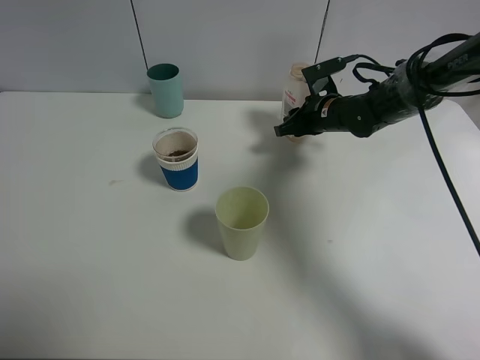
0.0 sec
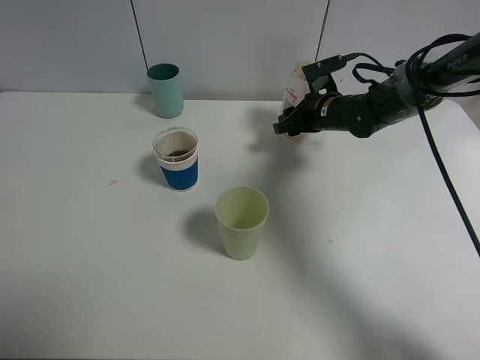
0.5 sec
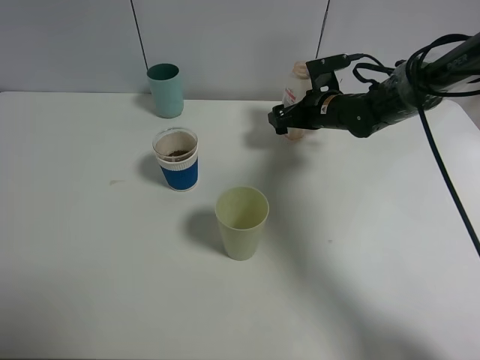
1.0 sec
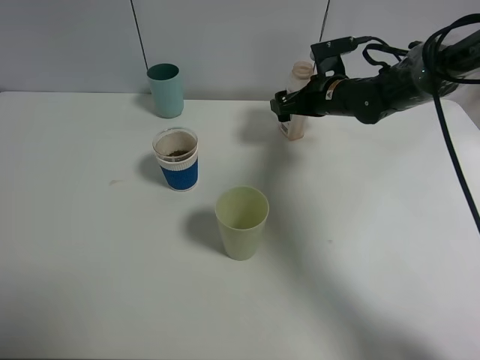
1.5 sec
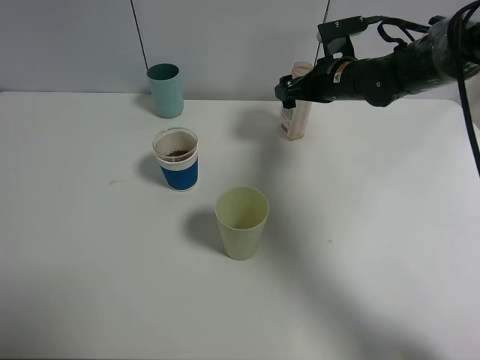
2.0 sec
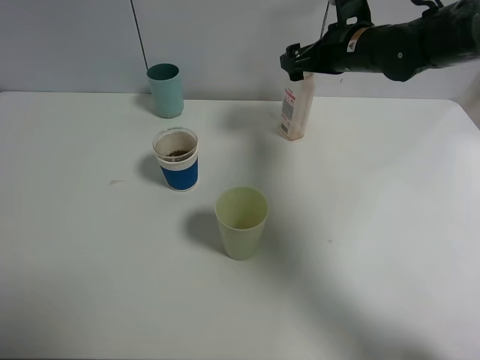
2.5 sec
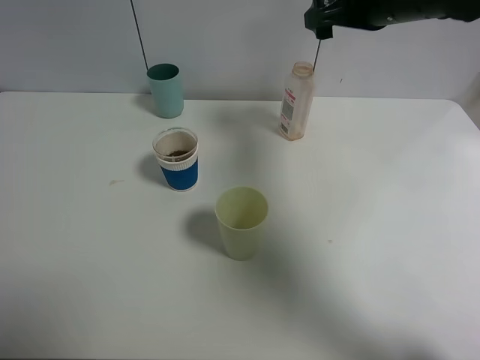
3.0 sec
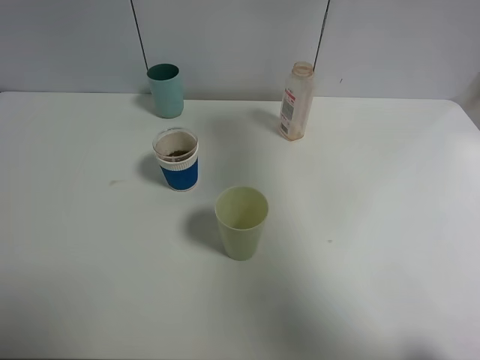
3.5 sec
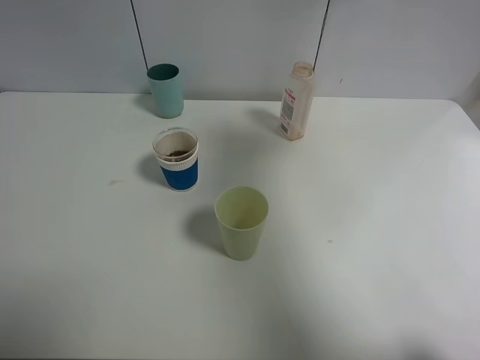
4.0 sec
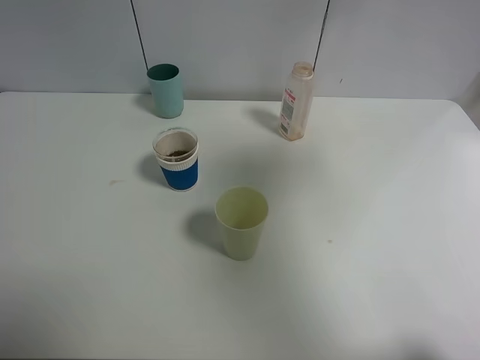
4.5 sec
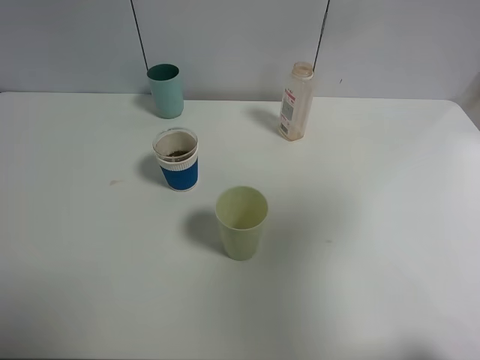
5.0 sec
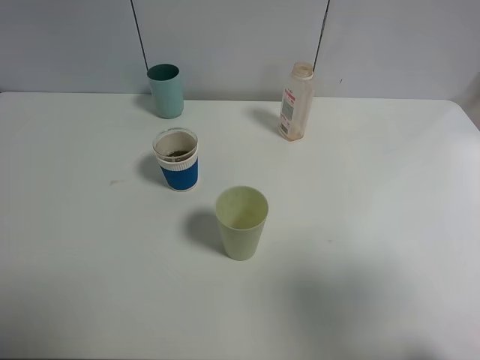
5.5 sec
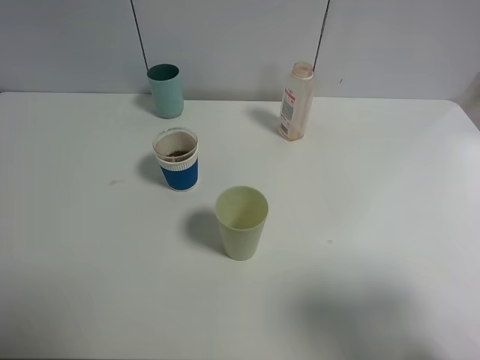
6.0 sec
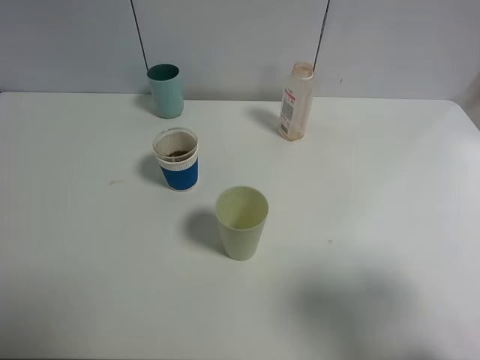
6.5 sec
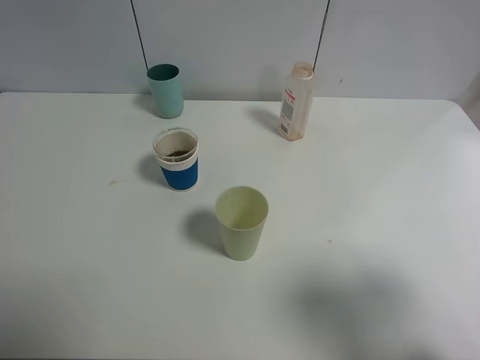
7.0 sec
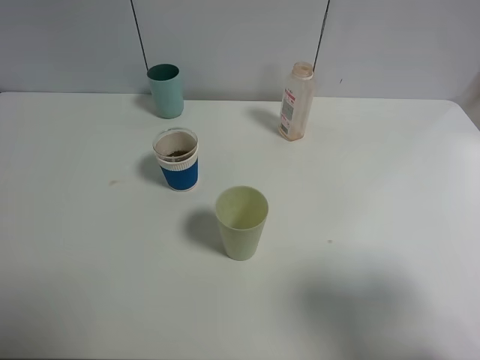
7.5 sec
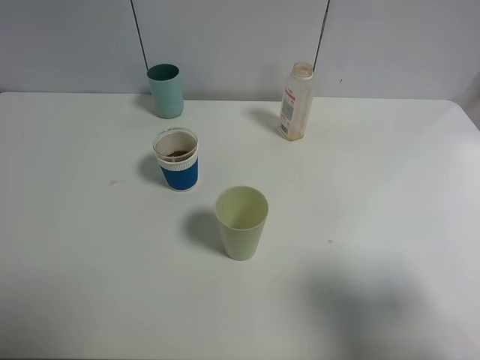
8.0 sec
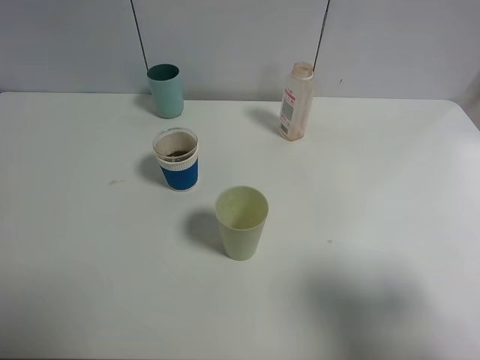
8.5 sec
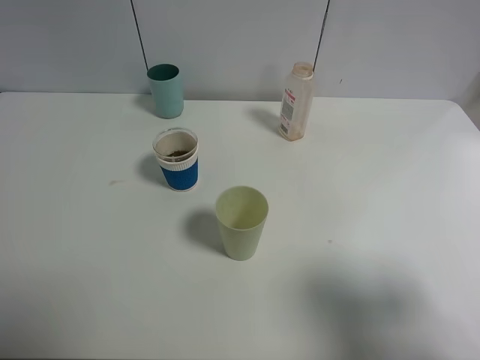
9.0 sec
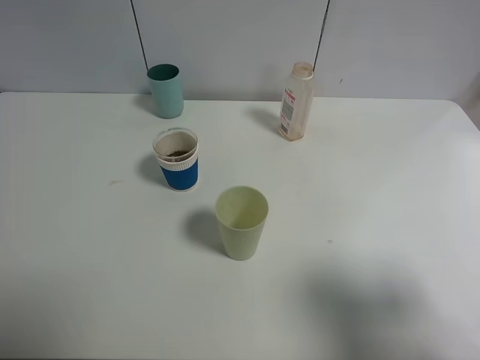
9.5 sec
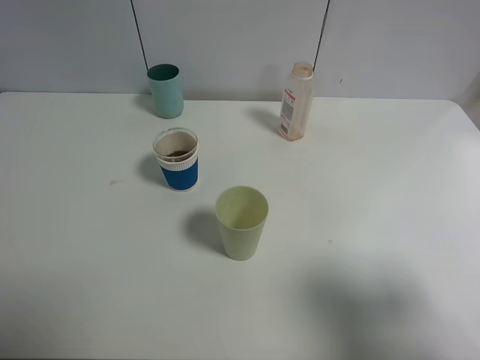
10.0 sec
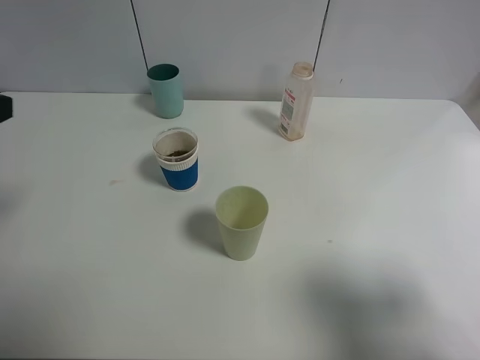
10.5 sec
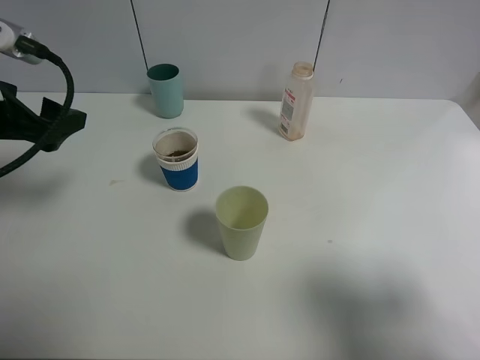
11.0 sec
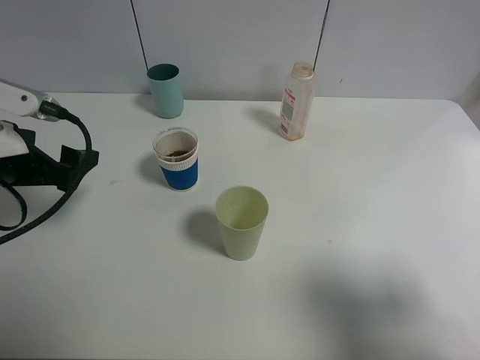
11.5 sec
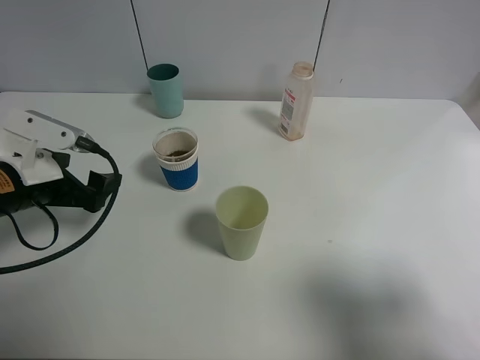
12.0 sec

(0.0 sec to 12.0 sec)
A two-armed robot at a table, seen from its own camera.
Task of the whole recording: use a clamp to hold the bottle of the drink, pour the beverage into a random cup, then clamp the cup containing the drink and pour the drink into another random cup.
0.0 sec - 2.0 sec: The right gripper goes some 5 cm upward, and opens its fingers.
2.0 sec - 4.0 sec: The right gripper moves upward and backward, approximately 30 cm.
4.0 sec - 6.0 sec: The right gripper shifts approximately 30 cm backward and downward.
10.0 sec - 12.0 sec: The left gripper travels forward and downward by about 25 cm.

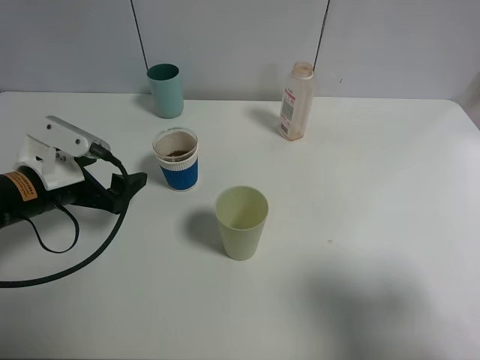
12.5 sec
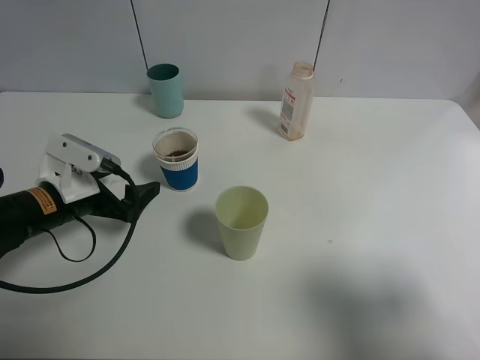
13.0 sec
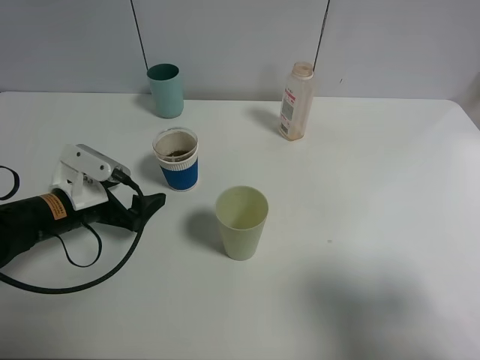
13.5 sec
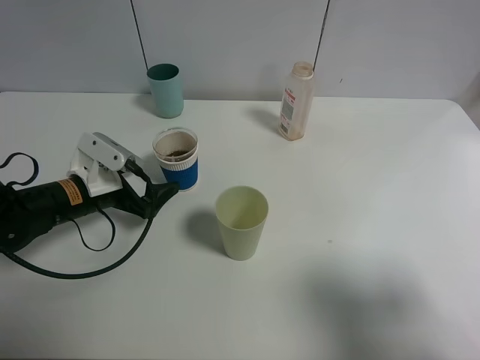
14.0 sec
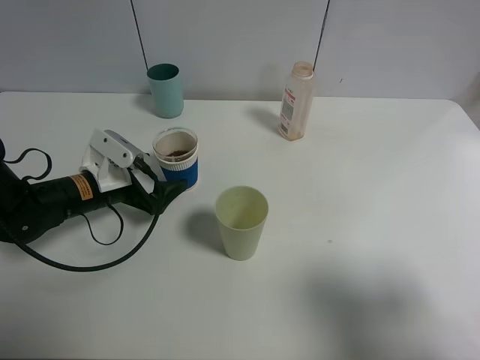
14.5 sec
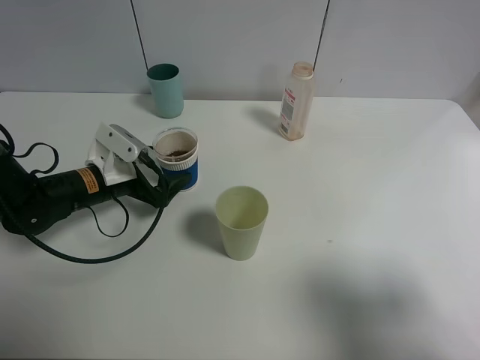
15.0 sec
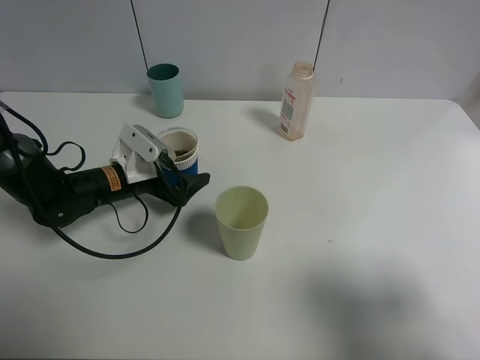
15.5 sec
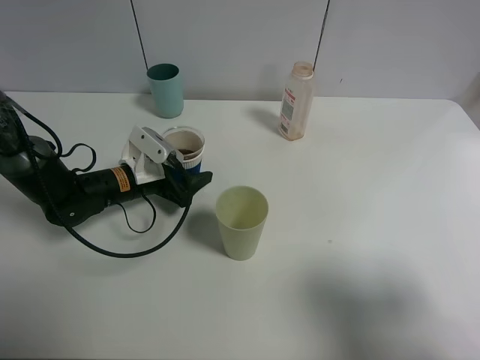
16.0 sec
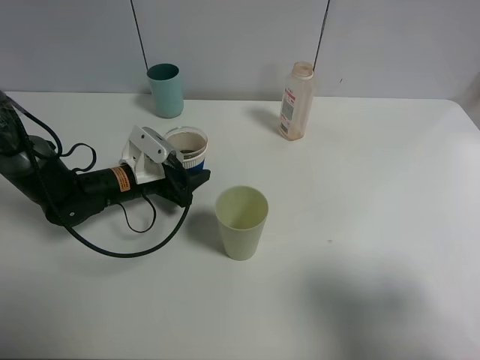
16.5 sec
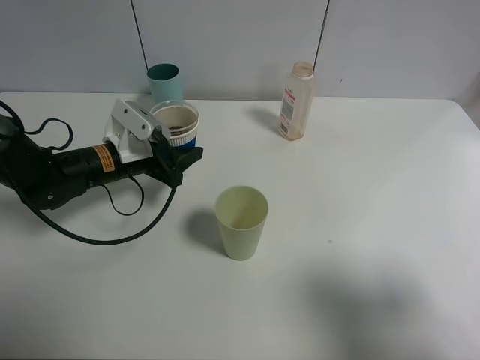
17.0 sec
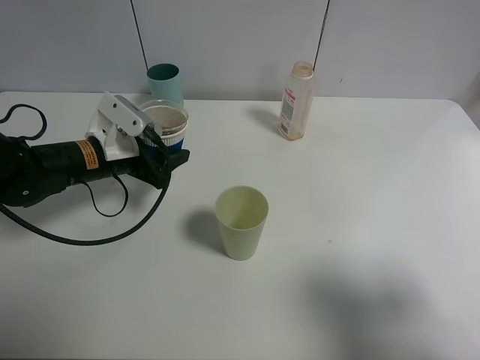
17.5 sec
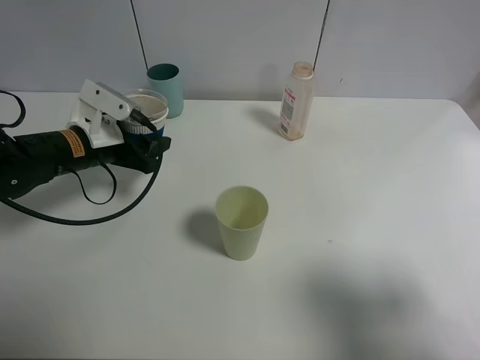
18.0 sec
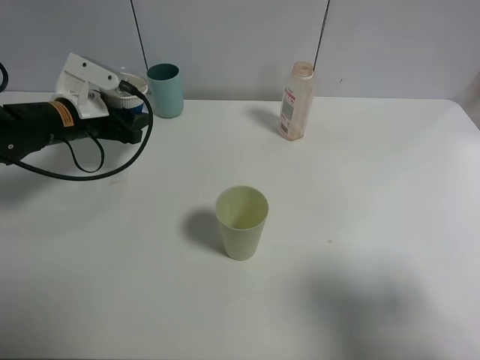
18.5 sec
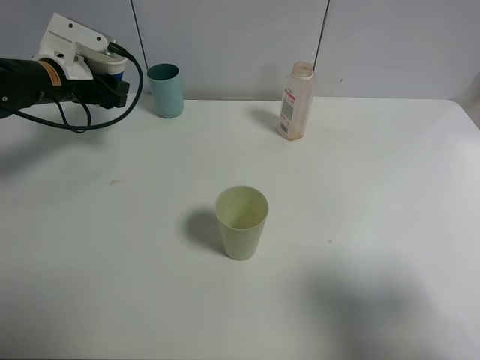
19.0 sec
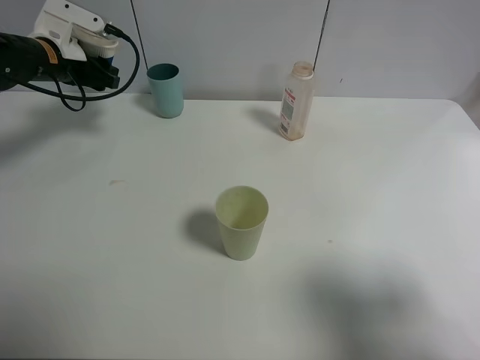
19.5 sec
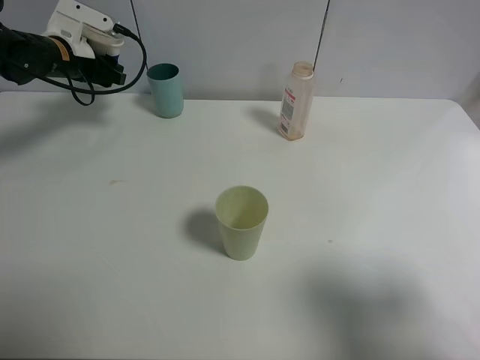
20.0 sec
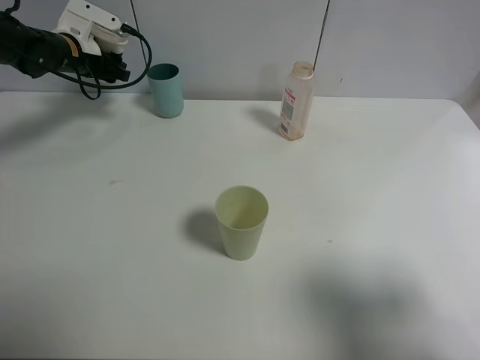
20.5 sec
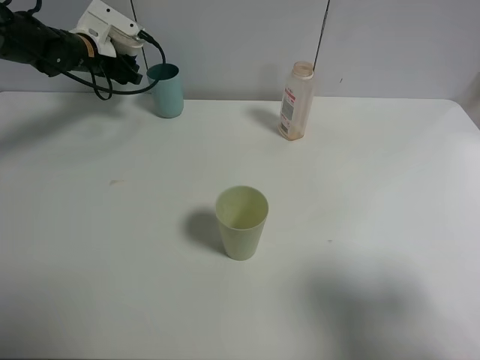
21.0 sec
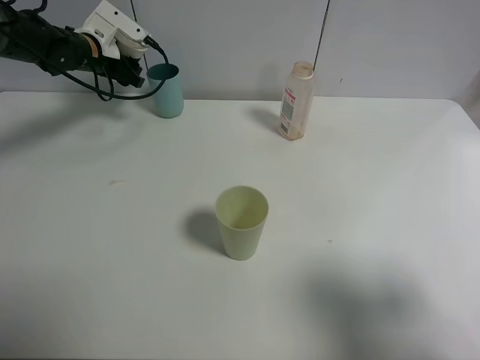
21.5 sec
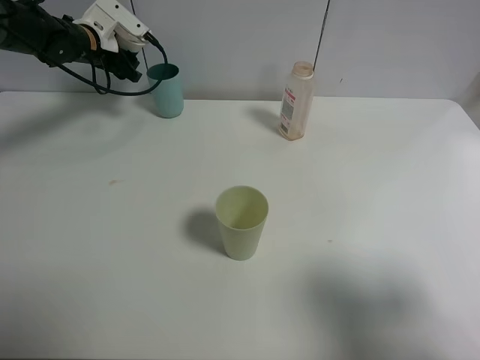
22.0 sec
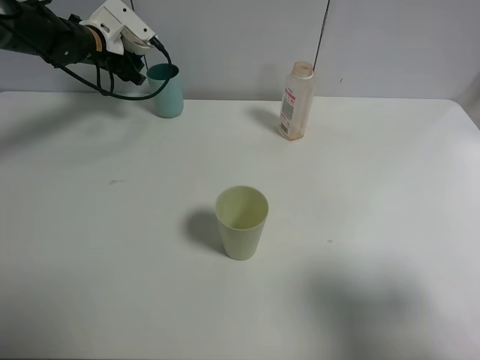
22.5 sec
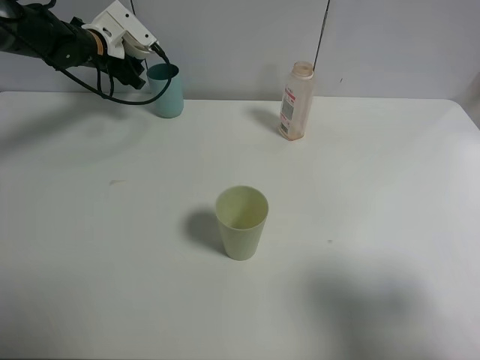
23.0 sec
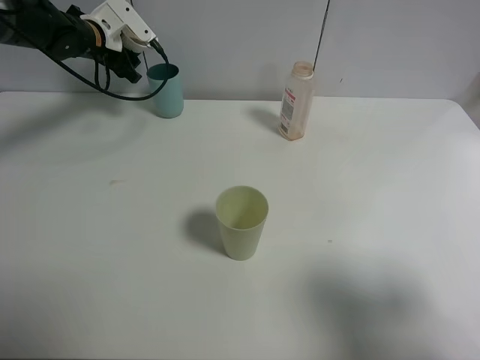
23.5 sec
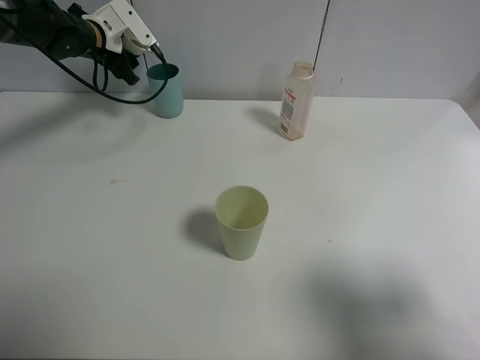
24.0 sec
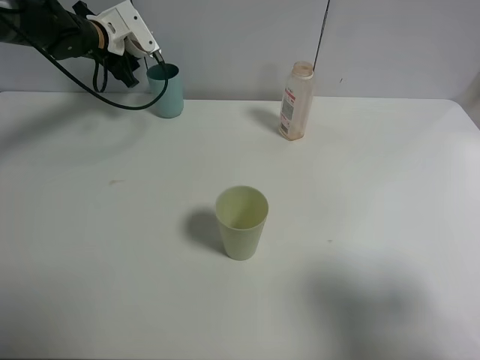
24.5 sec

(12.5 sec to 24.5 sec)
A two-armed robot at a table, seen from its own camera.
Task of the whole recording: use a clamp to hold the bottle of the drink, pour the beverage into a random cup, then clamp the cup containing the drink and pour the drink into another random cup.
Step, 12.5 sec - 16.5 sec: Pick up the paper cup with left gripper.
12.5 sec - 14.5 sec: The left gripper travels downward by roughly 5 cm.
14.5 sec - 16.5 sec: The left gripper shifts by about 5 cm, and closes.
16.5 sec - 18.5 sec: The left gripper moves upward and to the left, about 10 cm.
18.5 sec - 20.5 sec: The left gripper heads forward, covering approximately 15 cm.
20.5 sec - 22.5 sec: There are only small adjustments of the grippers.
22.5 sec - 24.5 sec: The grippers stay close to where they were, moving slightly.

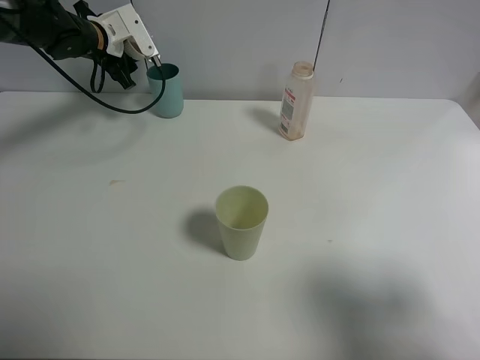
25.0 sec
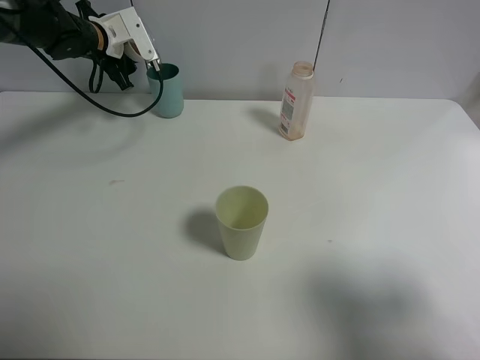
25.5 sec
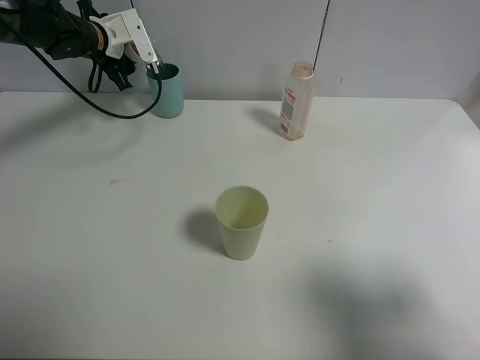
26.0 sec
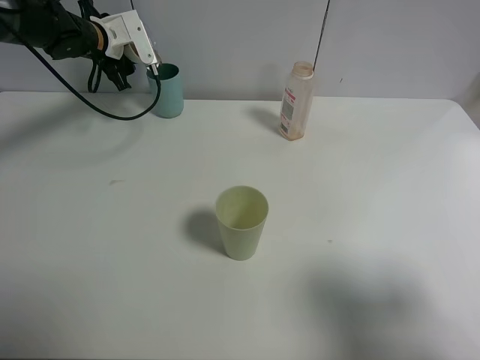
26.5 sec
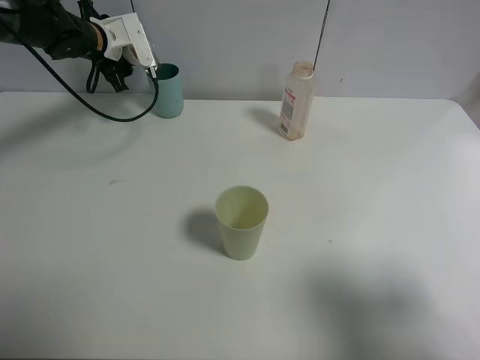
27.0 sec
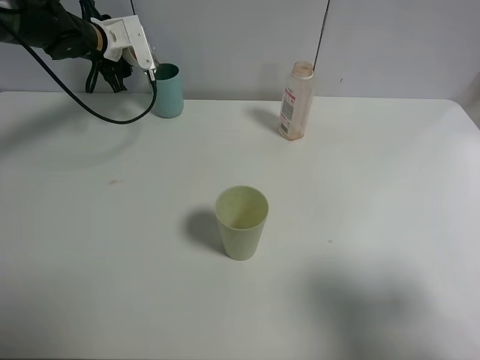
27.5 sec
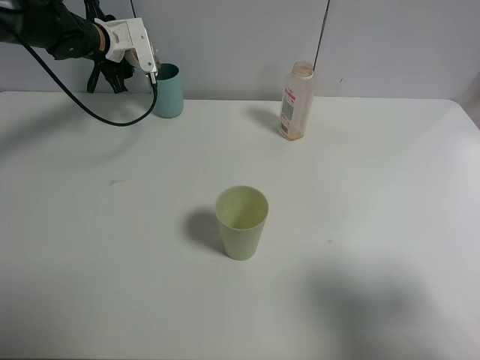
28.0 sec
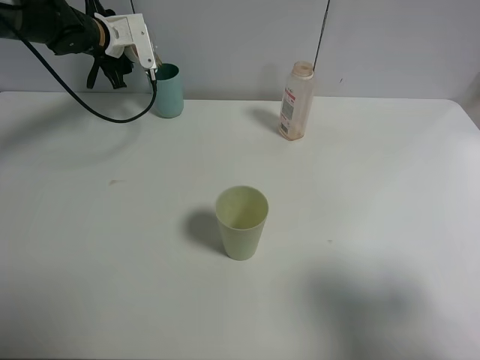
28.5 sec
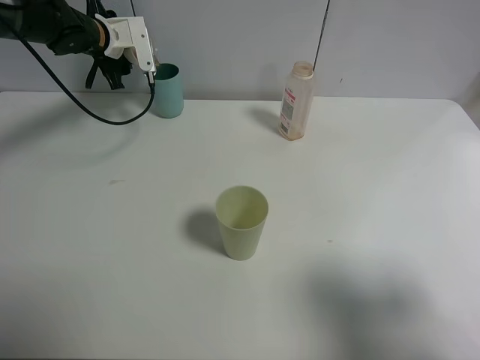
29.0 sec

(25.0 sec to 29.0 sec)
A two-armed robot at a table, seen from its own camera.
Task of the whole recording: use a clamp to hold the bottle of the drink, pour the beverage into a random cup, then clamp the cup containing the drink and pour the drink into another random cup.
25.0 sec - 29.0 sec: The grippers stay close to where they were, moving slightly.
